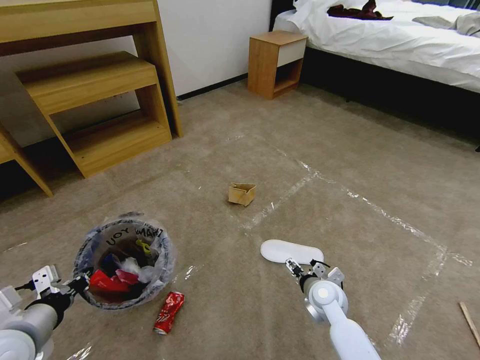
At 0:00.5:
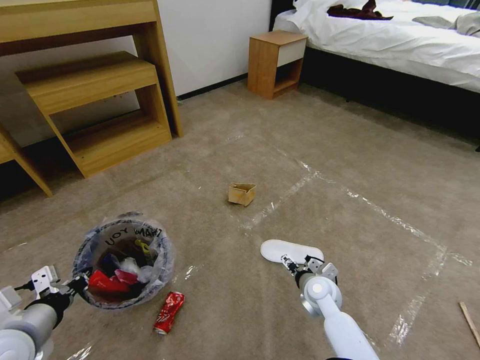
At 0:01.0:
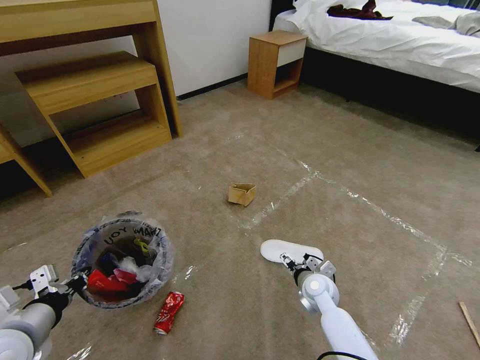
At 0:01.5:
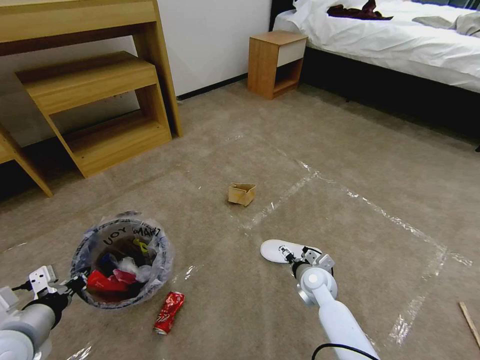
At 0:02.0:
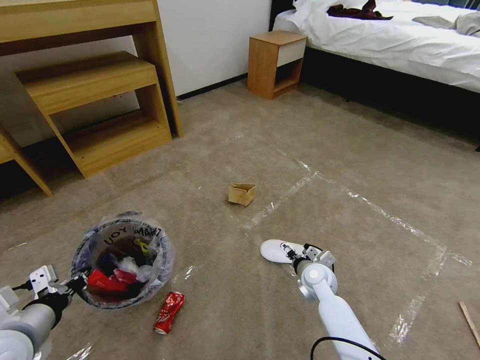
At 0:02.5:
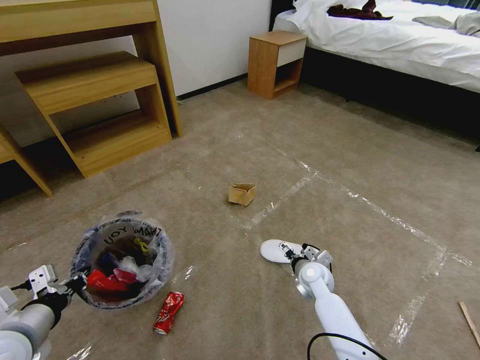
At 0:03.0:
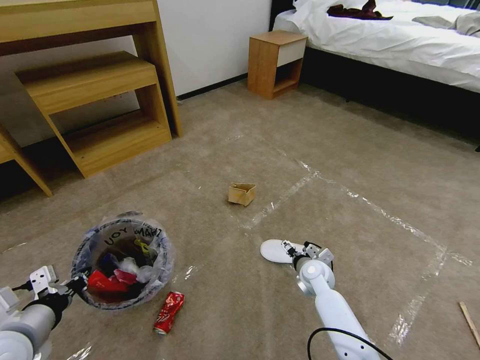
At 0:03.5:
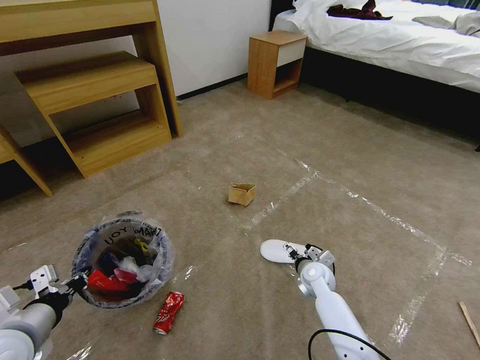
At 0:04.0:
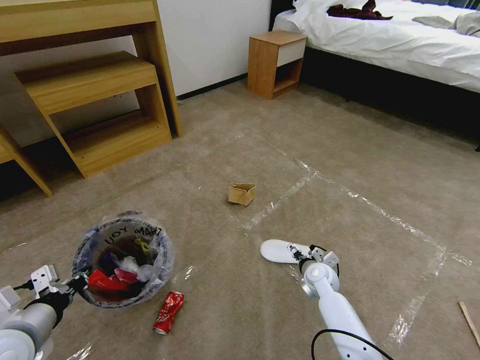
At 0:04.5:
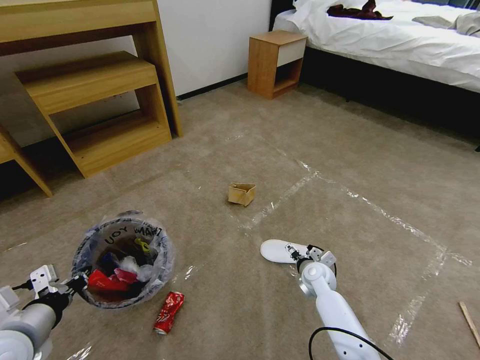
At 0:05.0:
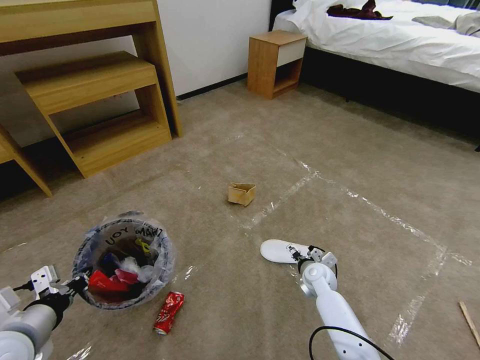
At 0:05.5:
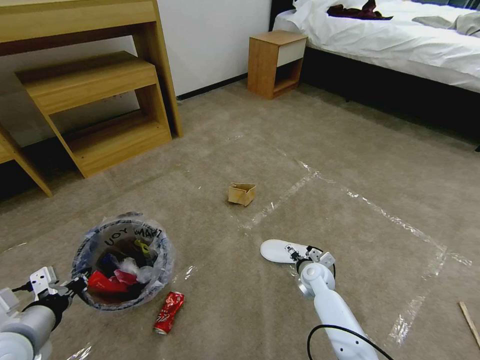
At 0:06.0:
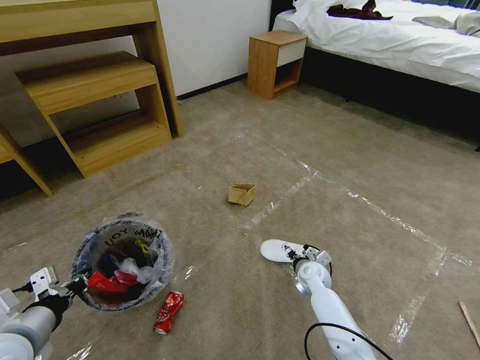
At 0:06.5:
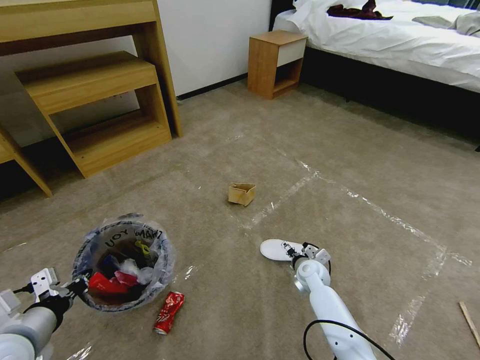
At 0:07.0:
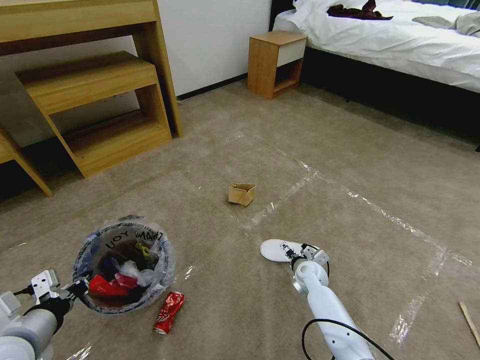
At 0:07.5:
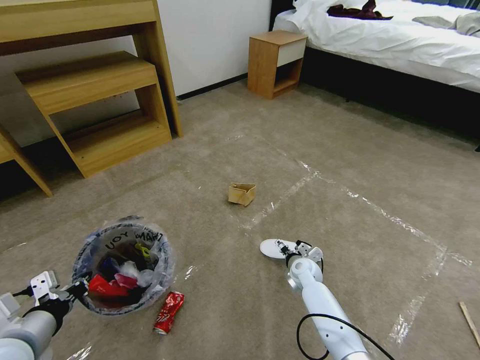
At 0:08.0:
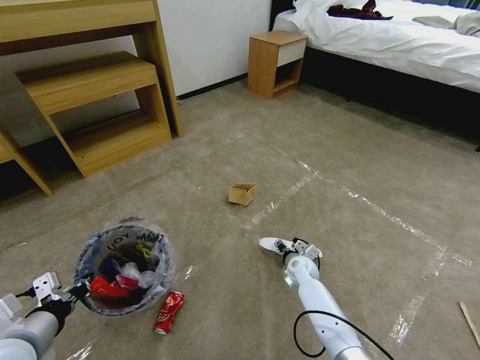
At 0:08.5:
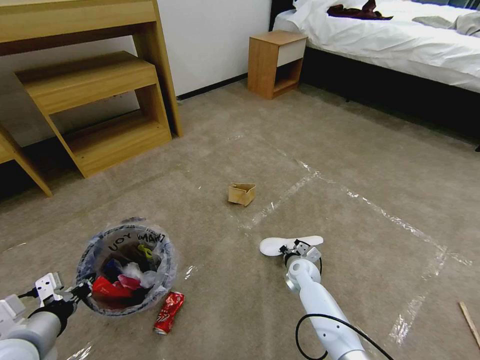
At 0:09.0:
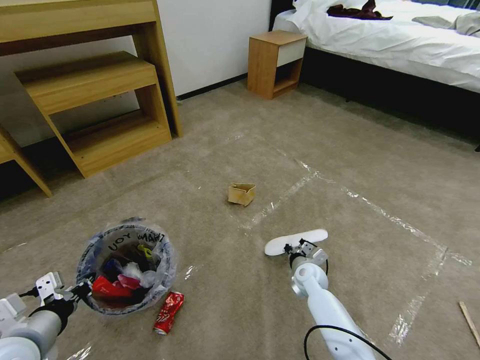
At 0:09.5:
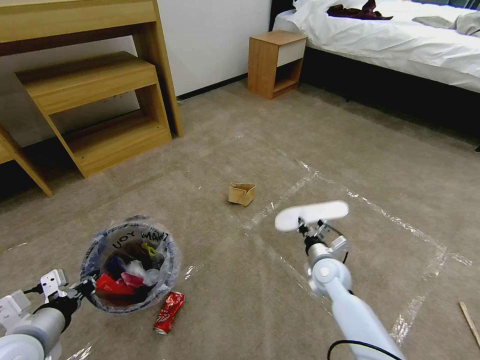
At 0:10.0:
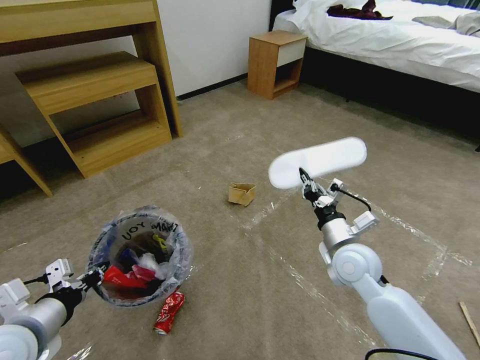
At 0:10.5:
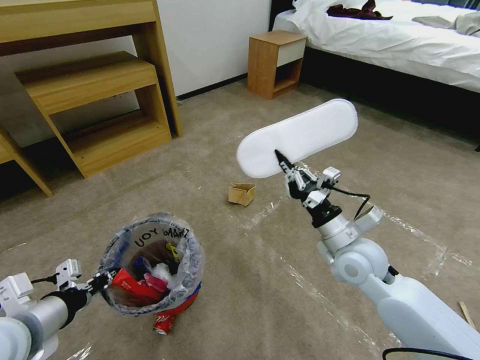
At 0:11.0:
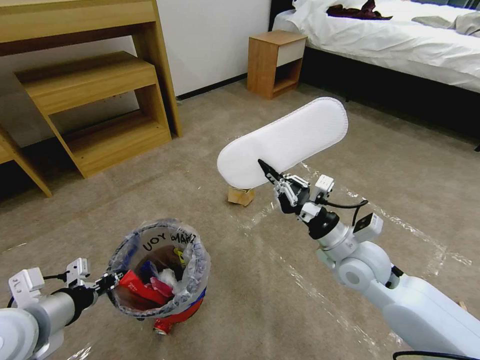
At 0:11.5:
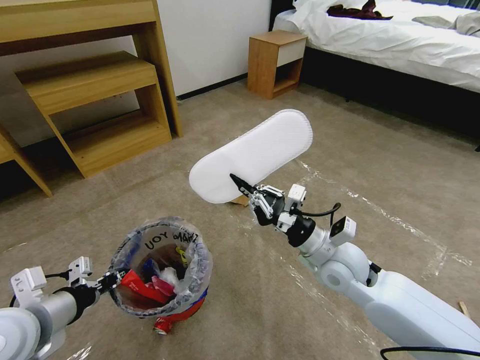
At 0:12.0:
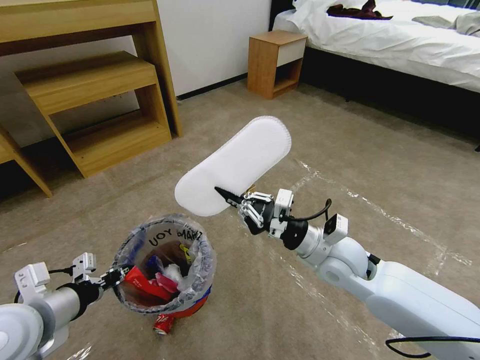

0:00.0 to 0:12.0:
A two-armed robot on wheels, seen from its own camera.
Task of the whole recording: Pick up the trash bin and place the garbage on the floor into it.
0:00.0 to 0:02.0: The right gripper travels forward by roughly 5 cm.
0:02.0 to 0:06.0: The grippers move only a little.
0:06.0 to 0:08.0: The right gripper closes.
0:08.0 to 0:10.0: The right gripper shifts some 25 cm upward and backward, and closes its fingers.
0:10.0 to 0:12.0: The right gripper changes place by roughly 5 cm.

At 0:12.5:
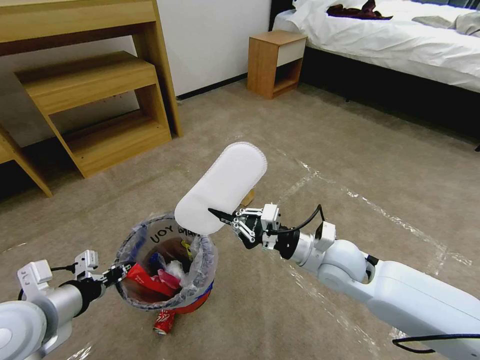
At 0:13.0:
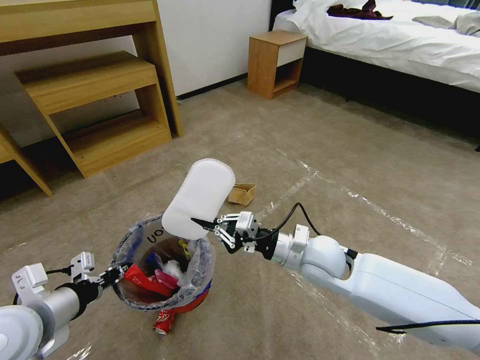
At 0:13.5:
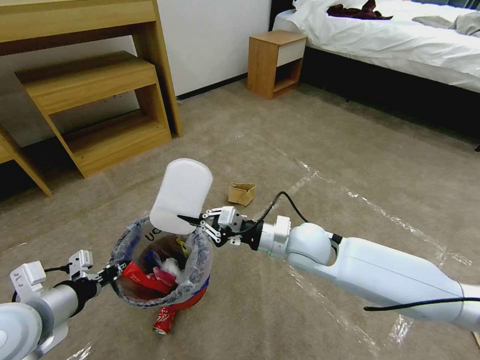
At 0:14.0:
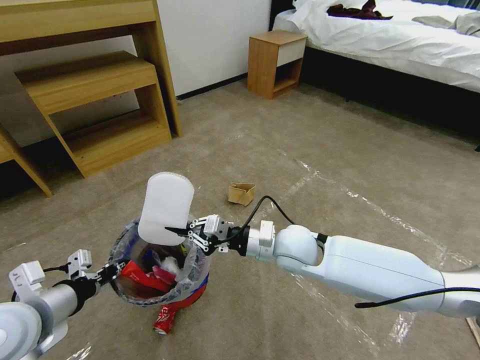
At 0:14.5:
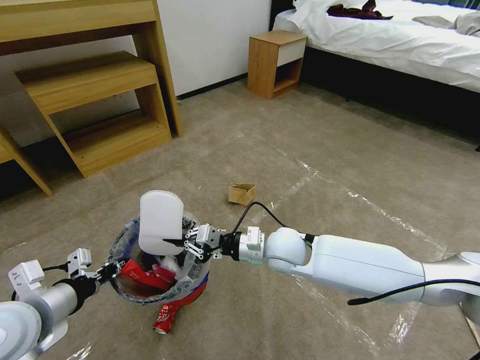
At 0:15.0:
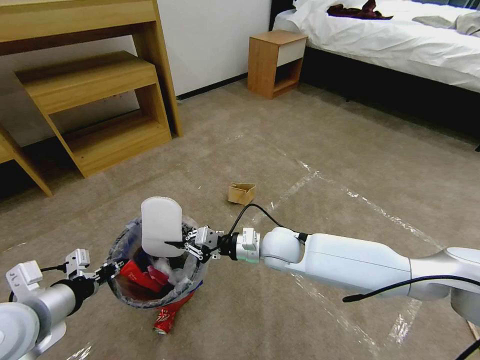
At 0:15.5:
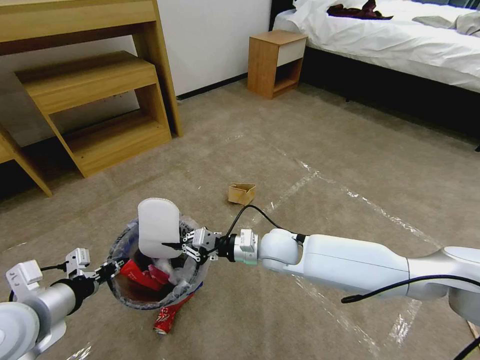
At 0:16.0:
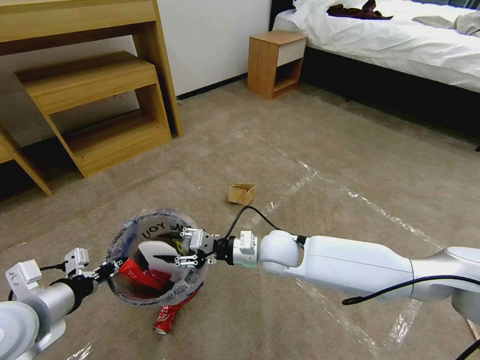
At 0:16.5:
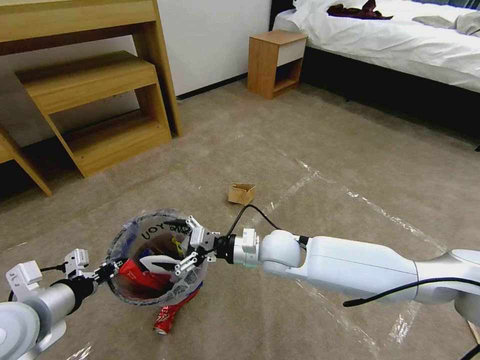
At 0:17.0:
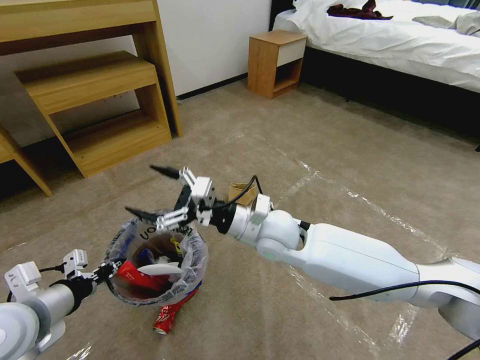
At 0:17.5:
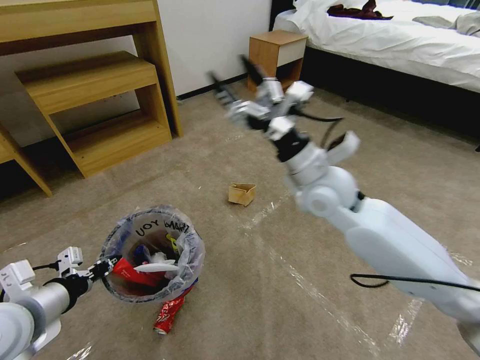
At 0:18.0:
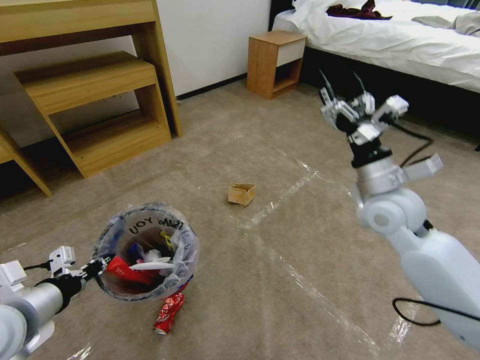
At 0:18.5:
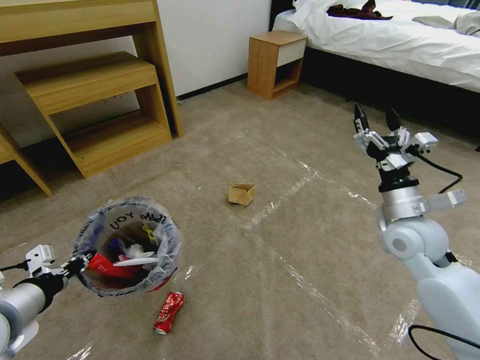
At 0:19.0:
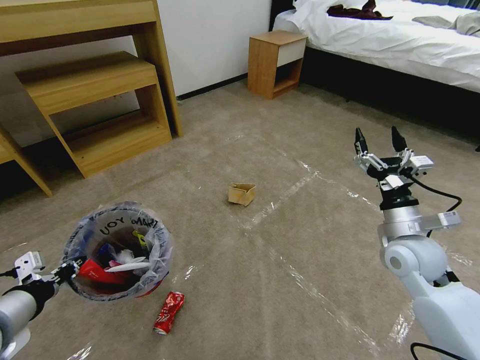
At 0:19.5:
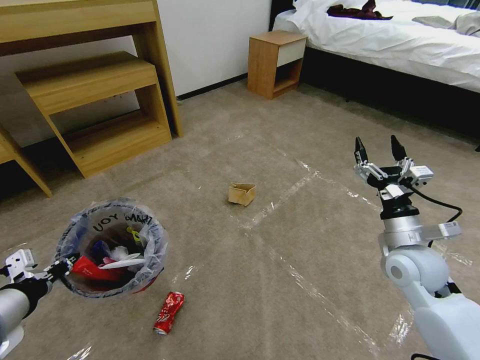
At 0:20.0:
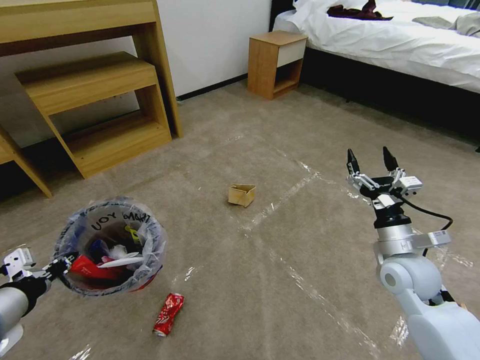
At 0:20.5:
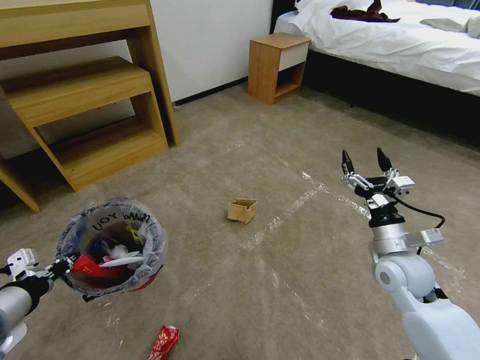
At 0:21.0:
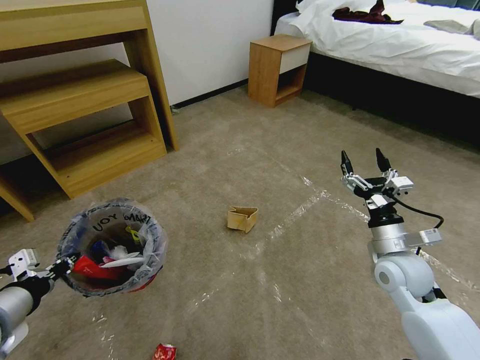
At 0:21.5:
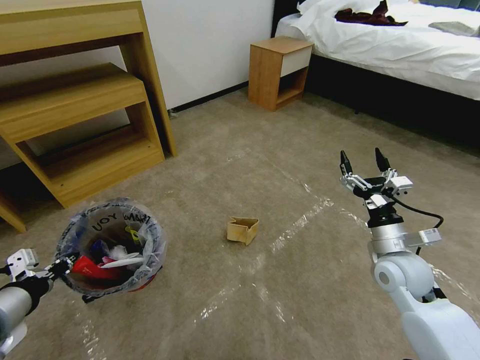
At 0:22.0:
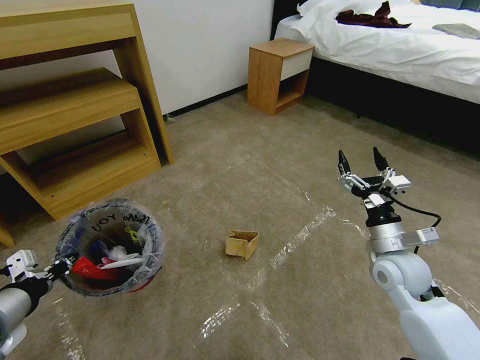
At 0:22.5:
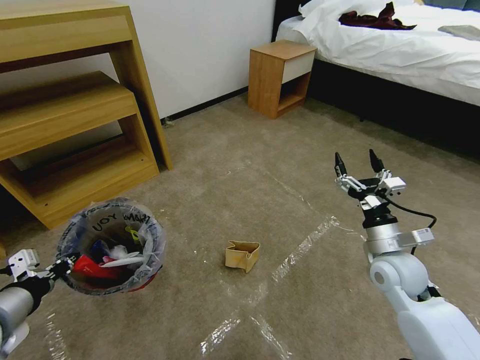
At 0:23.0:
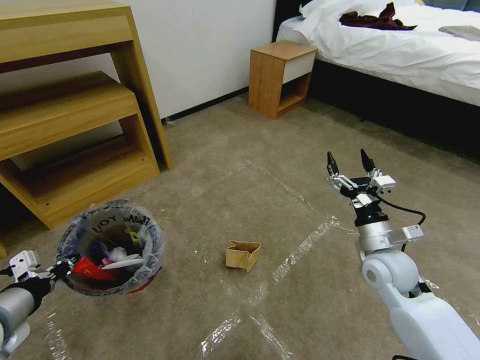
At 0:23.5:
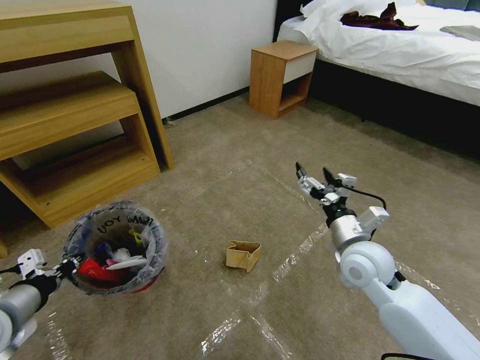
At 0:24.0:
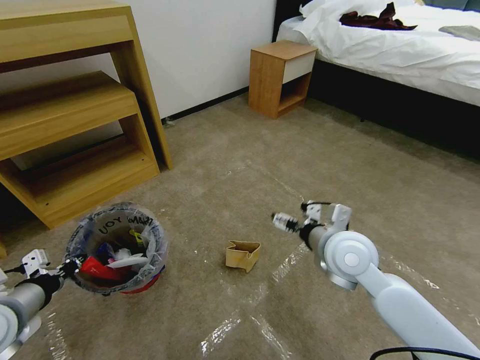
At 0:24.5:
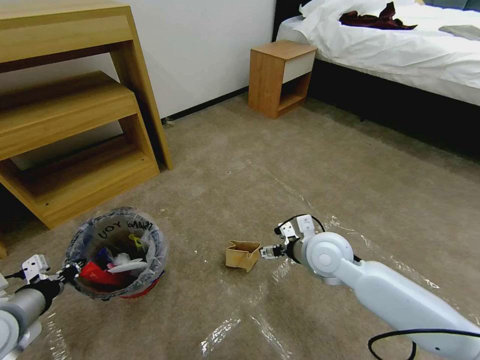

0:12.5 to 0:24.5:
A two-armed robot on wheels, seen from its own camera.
Task of the whole recording: Pick up the trash bin and place the garbage on the floor into it.
0:12.5 to 0:14.5: The right gripper moves to the left, some 10 cm.
0:14.5 to 0:16.5: The right gripper opens its fingers.
0:16.5 to 0:18.5: The right gripper shifts about 25 cm to the right.
0:18.5 to 0:20.5: The right gripper heads downward, covering some 10 cm.
0:22.5 to 0:24.5: The right gripper is displaced to the left by approximately 15 cm.

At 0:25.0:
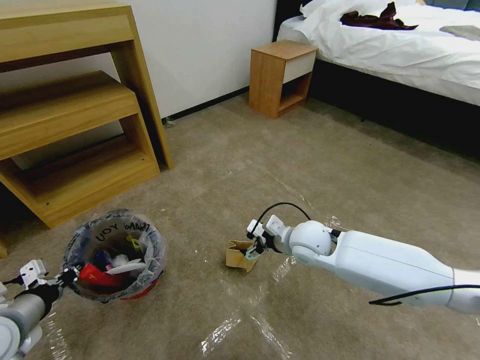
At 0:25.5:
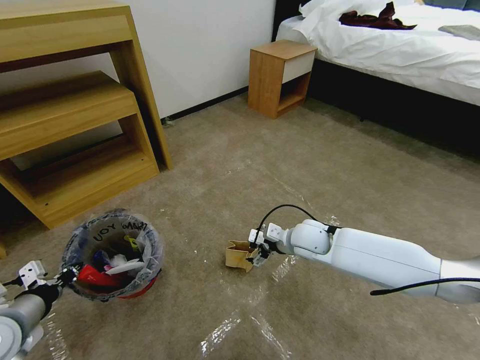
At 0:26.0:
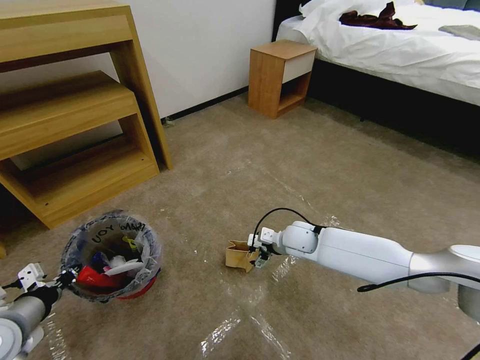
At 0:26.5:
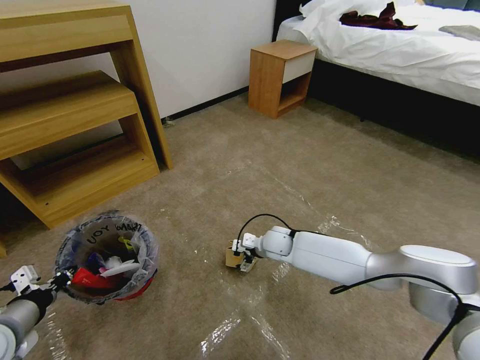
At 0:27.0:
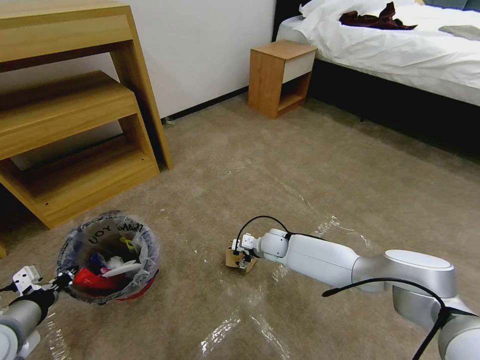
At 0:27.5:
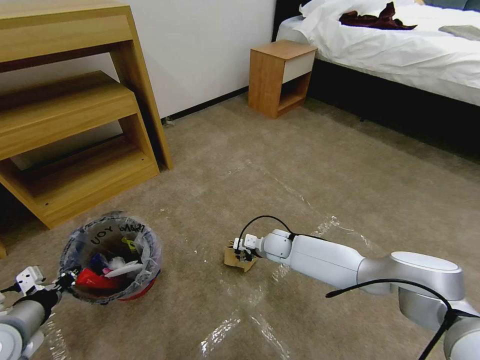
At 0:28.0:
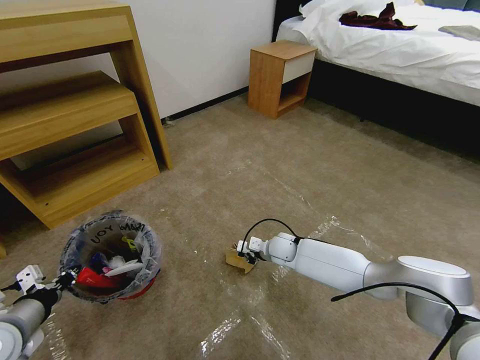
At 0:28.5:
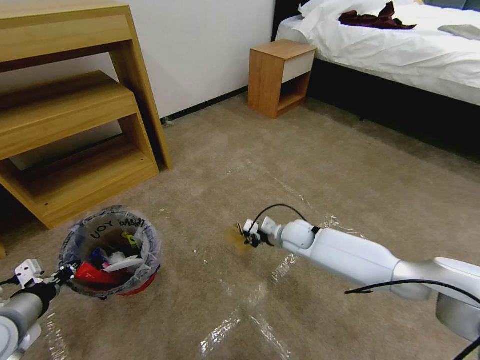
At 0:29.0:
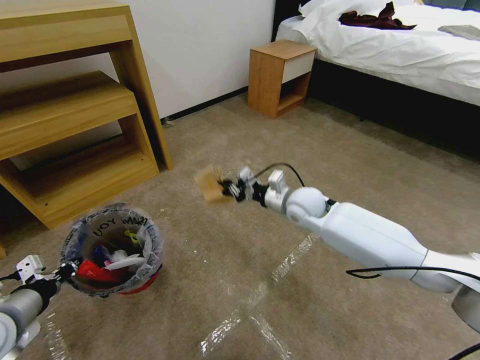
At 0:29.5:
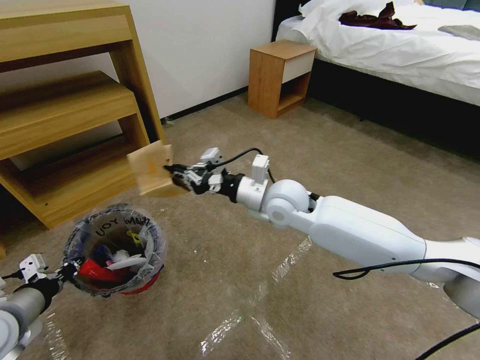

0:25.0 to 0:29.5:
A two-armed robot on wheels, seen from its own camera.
Task of the whole recording: Pick up the trash bin and place the garbage on the floor into it.
0:25.0 to 0:27.0: The right gripper is displaced downward and forward by some 15 cm.
0:27.0 to 0:29.5: The right gripper is displaced upward by some 25 cm, and closes up.
